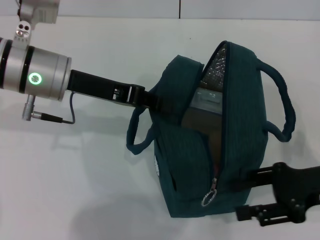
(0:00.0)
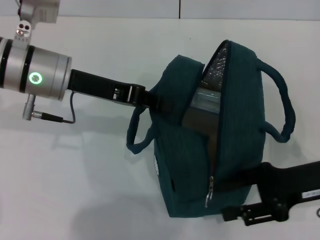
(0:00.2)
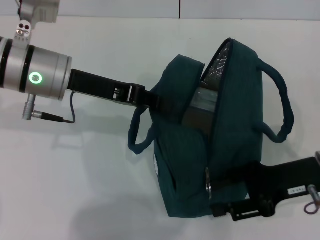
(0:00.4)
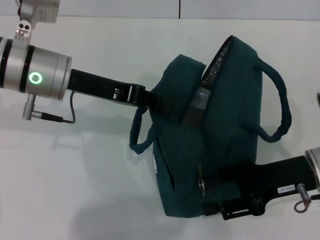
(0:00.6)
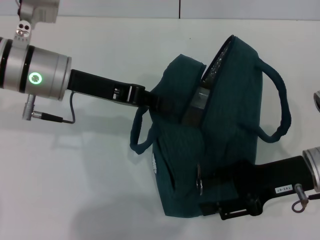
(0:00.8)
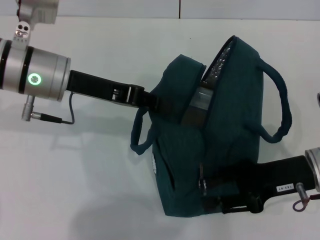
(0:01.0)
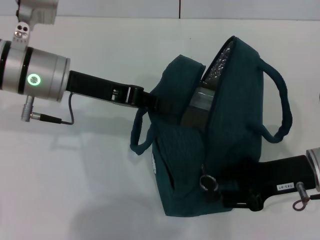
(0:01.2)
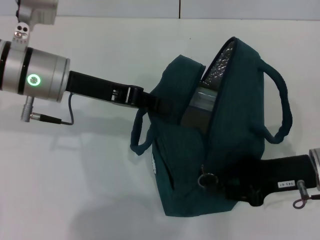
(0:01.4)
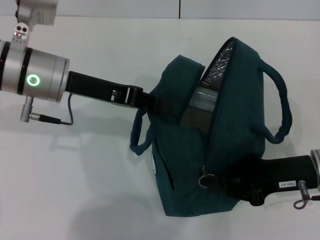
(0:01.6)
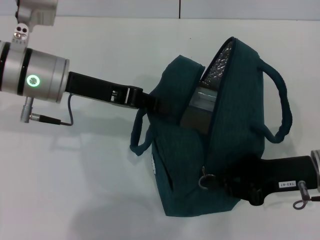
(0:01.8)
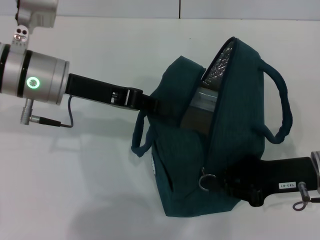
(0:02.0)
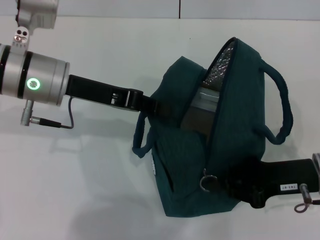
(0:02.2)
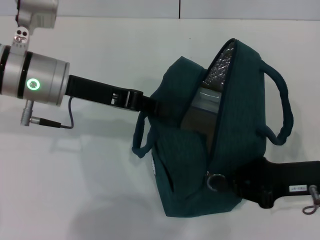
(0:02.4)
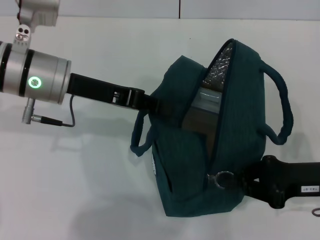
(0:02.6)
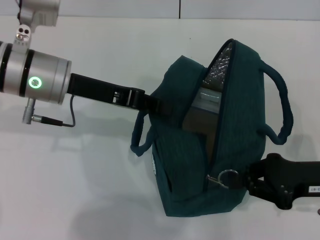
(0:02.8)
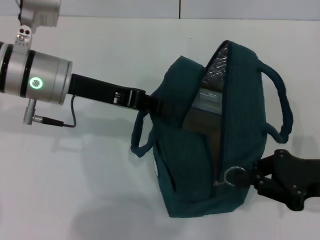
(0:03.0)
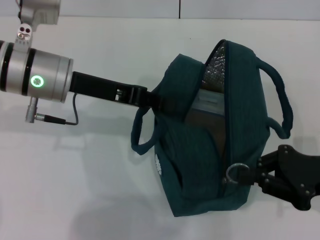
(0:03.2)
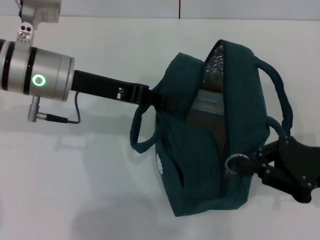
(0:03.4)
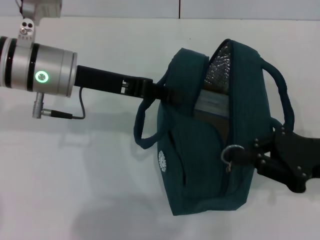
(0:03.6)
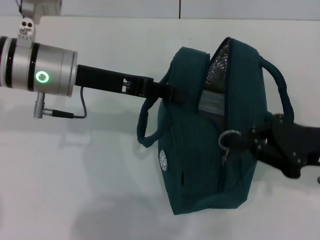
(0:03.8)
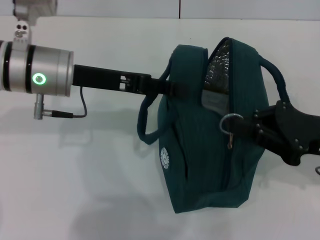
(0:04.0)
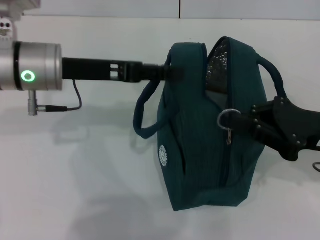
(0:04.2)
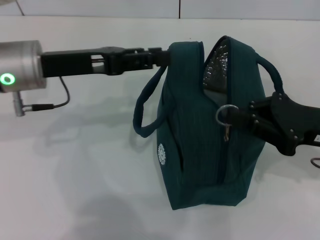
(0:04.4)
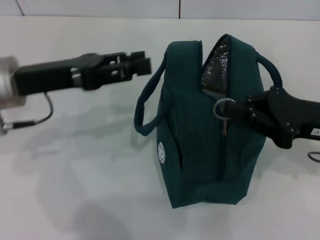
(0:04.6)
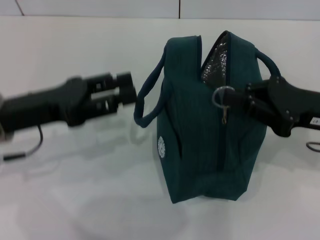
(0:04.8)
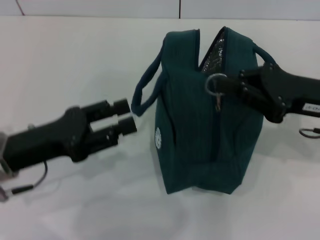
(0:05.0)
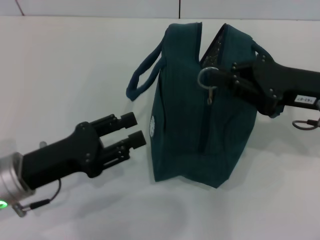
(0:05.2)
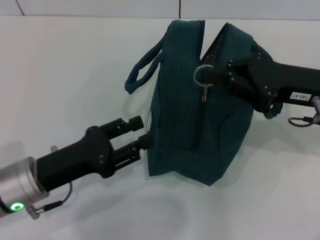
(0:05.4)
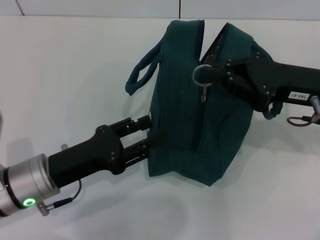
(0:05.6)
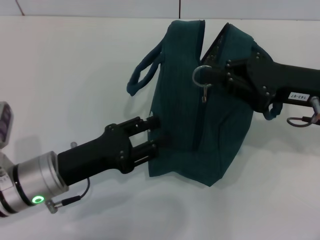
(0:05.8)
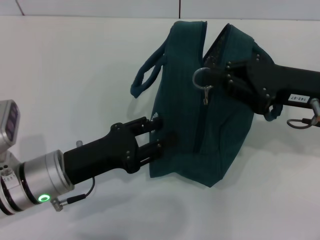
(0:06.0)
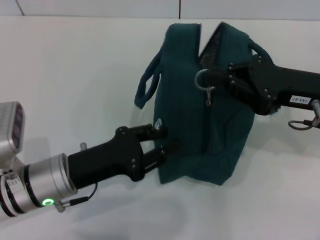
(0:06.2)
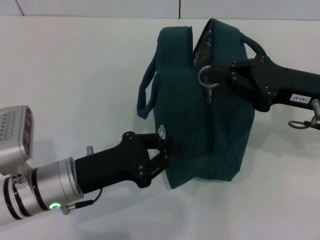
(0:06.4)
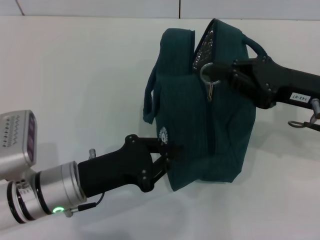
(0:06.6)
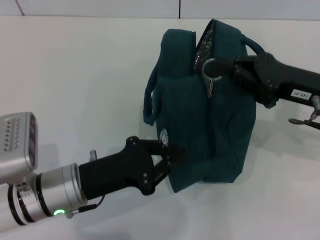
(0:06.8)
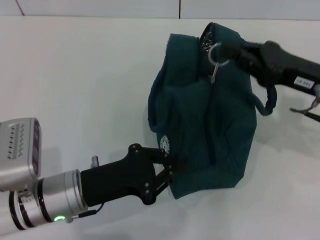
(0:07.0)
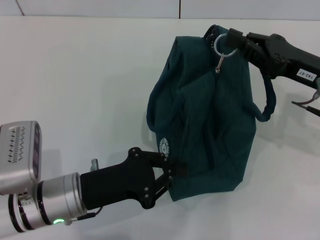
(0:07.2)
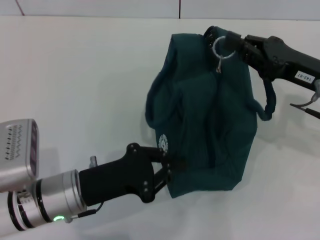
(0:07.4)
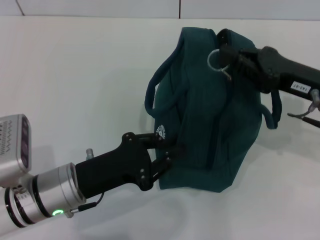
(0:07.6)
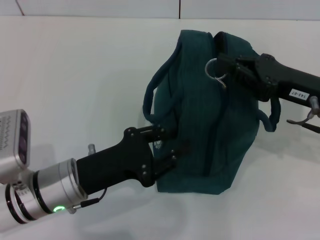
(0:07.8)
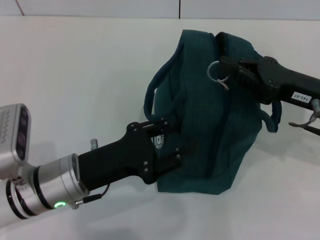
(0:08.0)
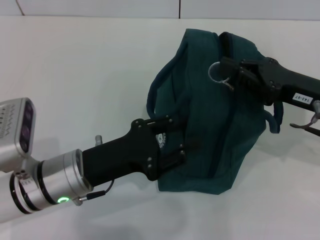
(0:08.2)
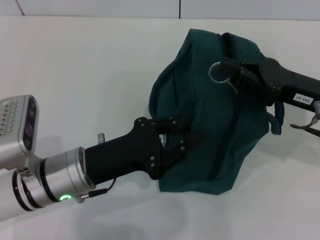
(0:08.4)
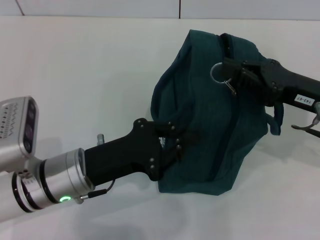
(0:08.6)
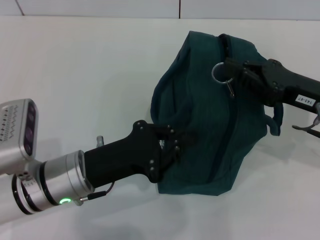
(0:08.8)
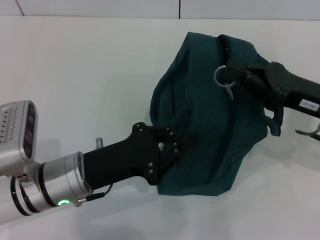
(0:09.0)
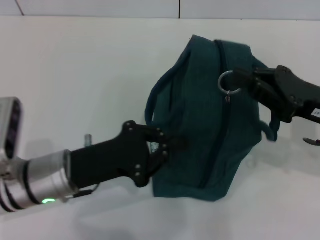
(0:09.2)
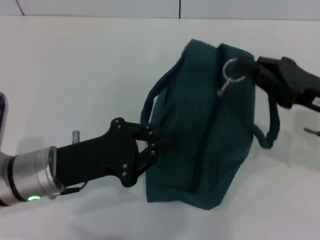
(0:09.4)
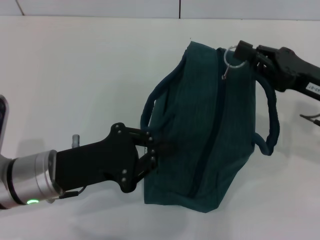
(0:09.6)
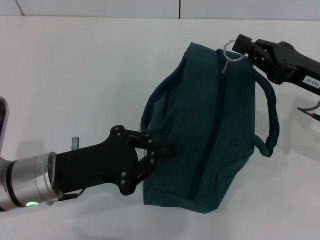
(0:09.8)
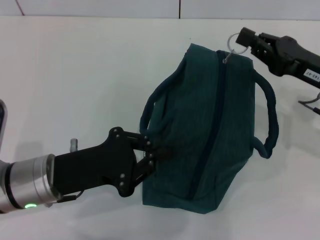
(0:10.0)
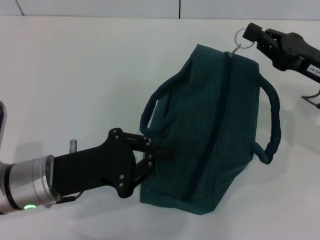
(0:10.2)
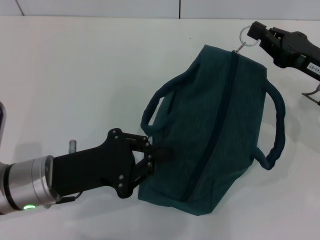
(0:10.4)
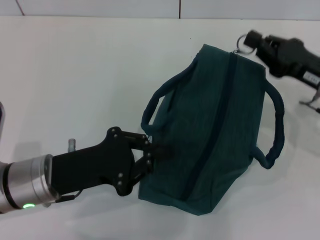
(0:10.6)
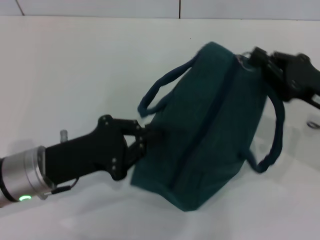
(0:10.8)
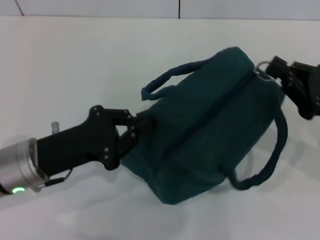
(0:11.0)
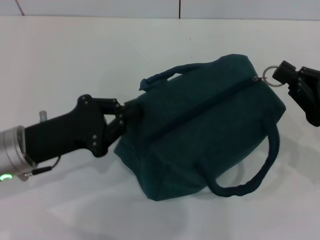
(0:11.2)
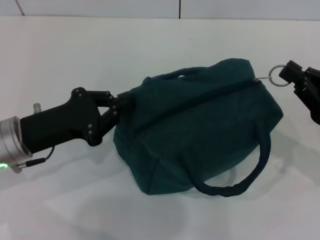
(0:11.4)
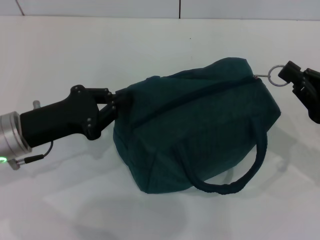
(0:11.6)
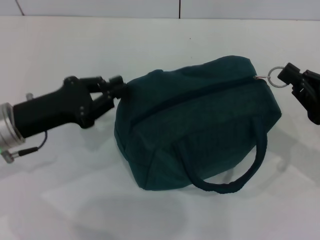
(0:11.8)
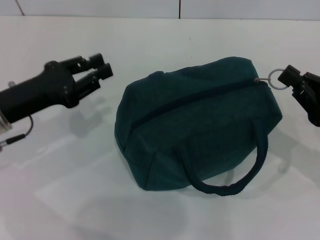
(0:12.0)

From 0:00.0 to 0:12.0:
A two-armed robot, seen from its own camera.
Step, from 0:00.0 to 0:04.2: Hold the lunch bag with your left hand.
From 0:00.0 to 0:01.6: The right gripper closes up.
From 0:01.6 to 0:03.0: The grippers stay close to where they were, moving slightly.
From 0:03.0 to 0:04.4: The left gripper opens.
From 0:04.4 to 0:06.0: The right gripper shifts by about 5 cm; the left gripper is displaced downward and backward by some 15 cm.
From 0:06.0 to 0:07.6: The left gripper closes its fingers.
From 0:07.6 to 0:09.0: The left gripper opens, then closes again.
From 0:10.4 to 0:12.0: The right gripper shifts roughly 10 cm backward; the left gripper goes roughly 10 cm to the left and forward.

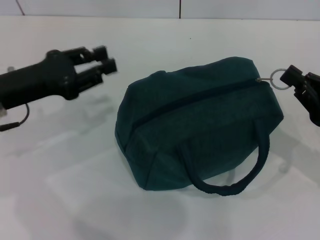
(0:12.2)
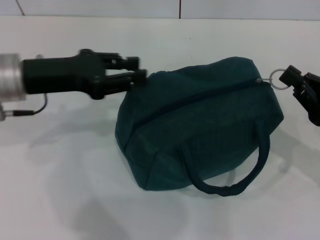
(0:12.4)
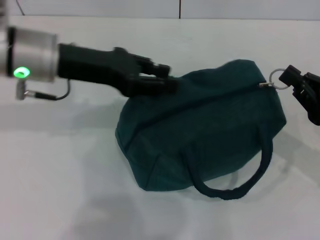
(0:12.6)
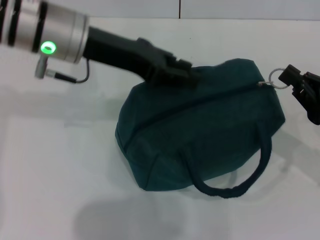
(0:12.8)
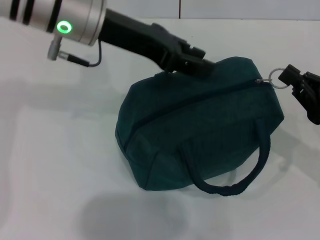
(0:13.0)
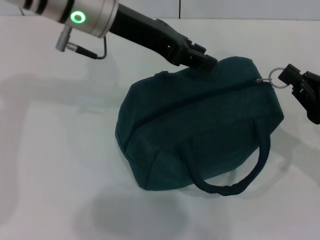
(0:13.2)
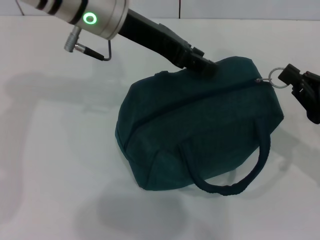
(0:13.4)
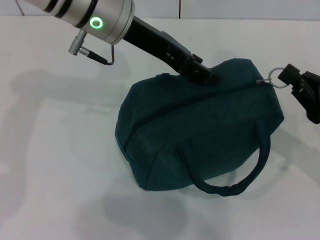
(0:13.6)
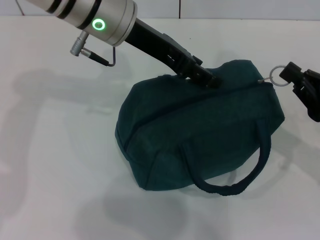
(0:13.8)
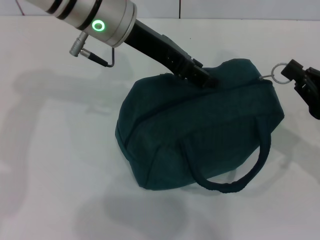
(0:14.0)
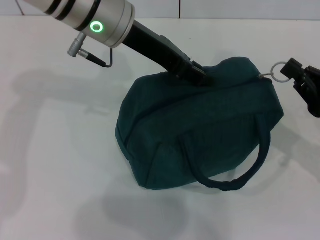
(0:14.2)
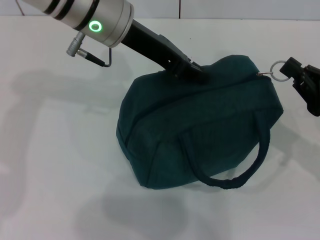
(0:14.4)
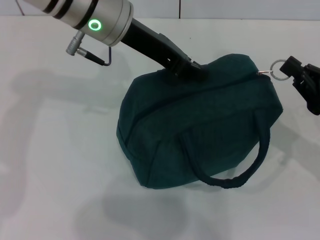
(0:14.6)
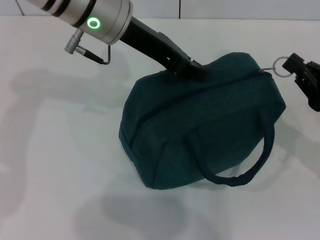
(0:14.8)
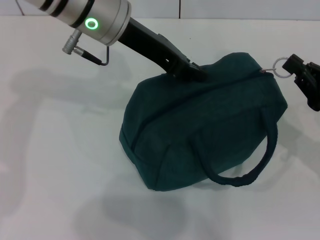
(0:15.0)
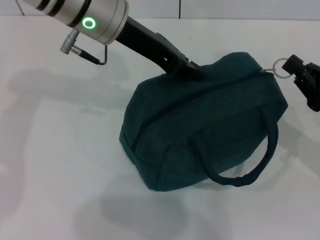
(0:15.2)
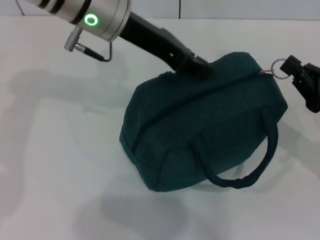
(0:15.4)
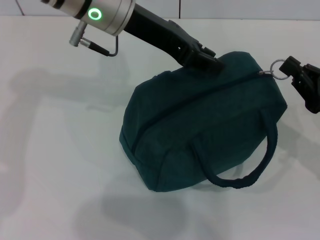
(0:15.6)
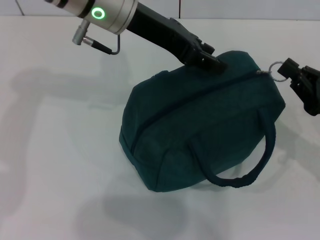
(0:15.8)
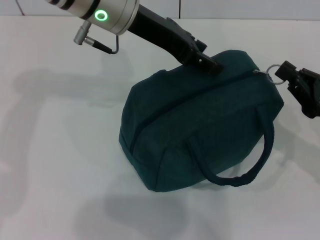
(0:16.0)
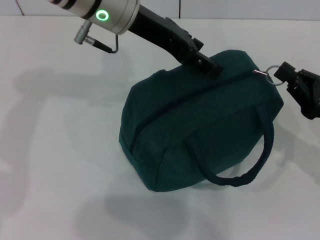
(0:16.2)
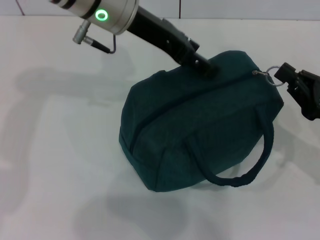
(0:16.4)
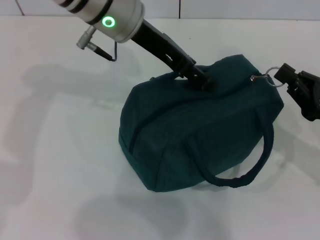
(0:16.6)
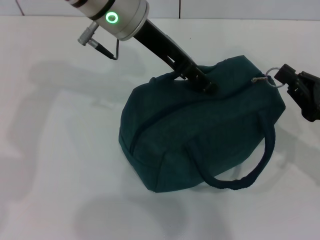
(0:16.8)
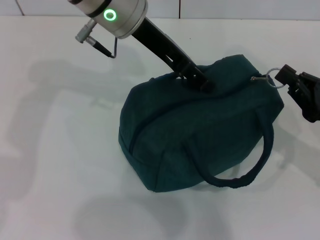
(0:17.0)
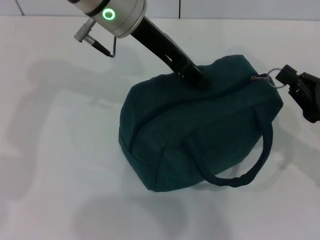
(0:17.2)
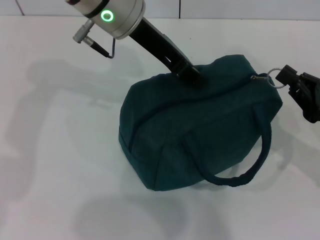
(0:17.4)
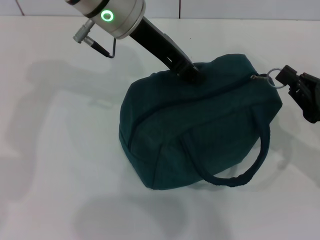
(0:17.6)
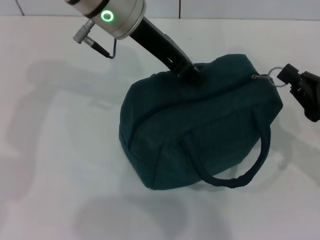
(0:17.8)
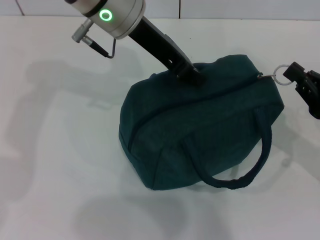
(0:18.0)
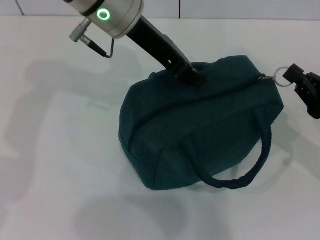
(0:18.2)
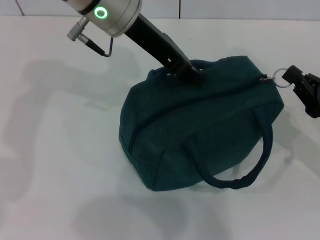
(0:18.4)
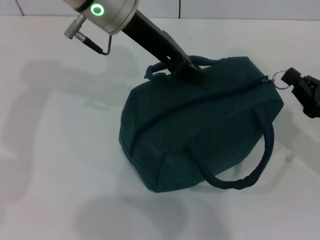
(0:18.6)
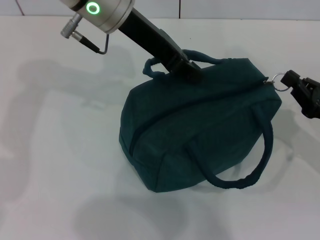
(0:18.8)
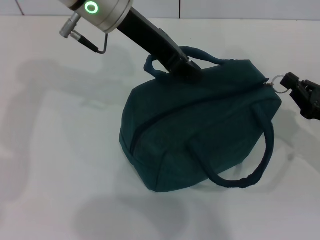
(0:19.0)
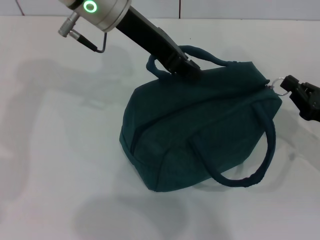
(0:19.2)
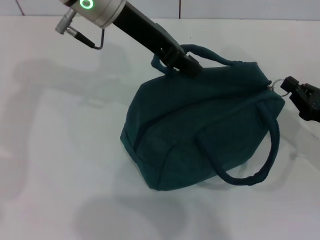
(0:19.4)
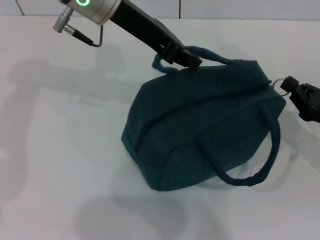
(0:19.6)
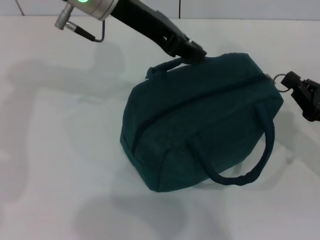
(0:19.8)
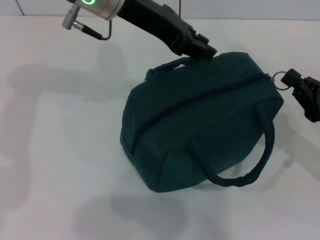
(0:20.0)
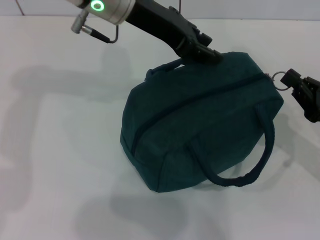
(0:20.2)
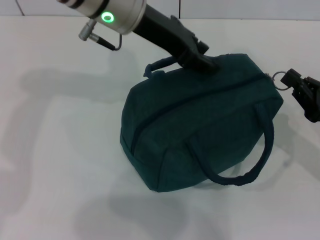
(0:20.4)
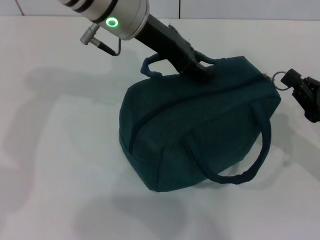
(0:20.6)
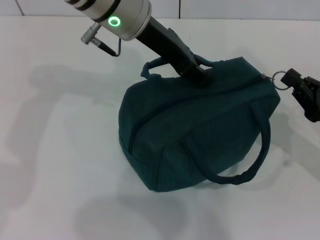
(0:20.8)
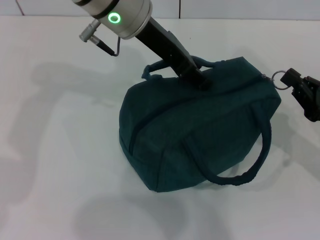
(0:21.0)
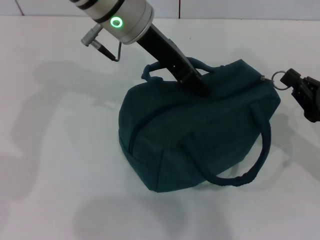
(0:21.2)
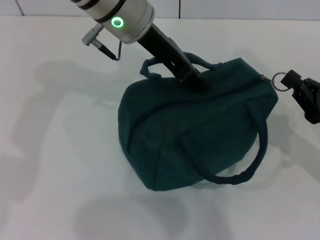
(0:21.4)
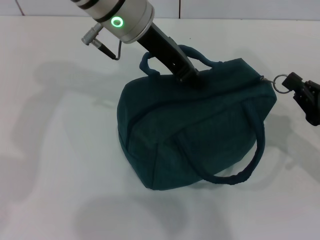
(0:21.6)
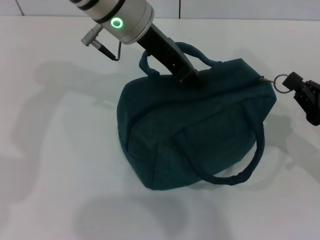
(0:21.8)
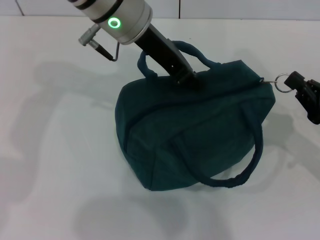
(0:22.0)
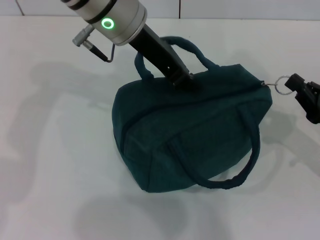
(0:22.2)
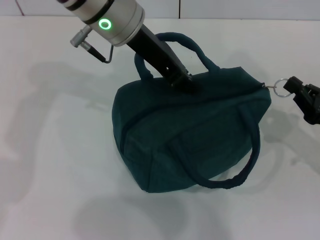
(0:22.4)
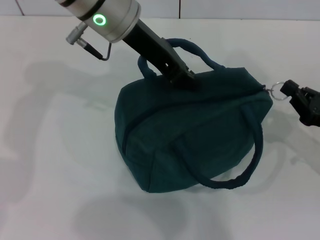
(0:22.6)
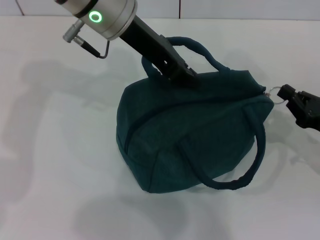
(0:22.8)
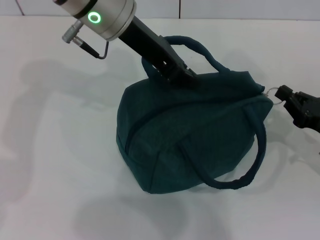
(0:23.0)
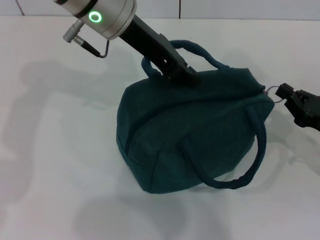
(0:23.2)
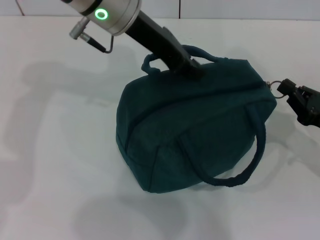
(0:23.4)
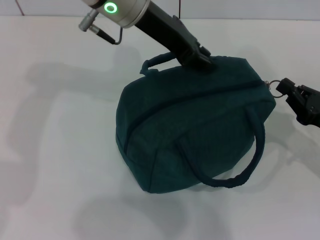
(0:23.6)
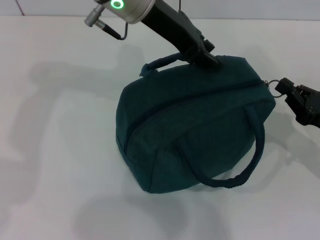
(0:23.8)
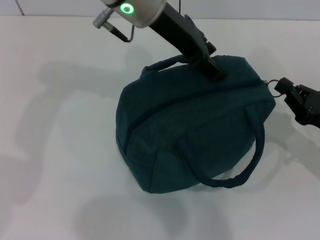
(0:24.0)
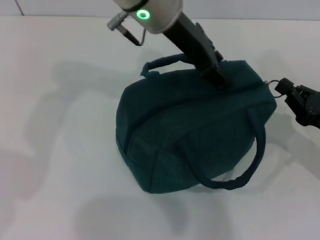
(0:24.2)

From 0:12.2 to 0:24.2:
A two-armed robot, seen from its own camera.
From 0:12.2 to 0:13.8: The left gripper goes some 20 cm to the right, upward and forward, and opens.
From 0:13.8 to 0:15.2: The left gripper closes up.
From 0:15.2 to 0:16.6: The left gripper opens.
From 0:16.6 to 0:18.2: The left gripper closes.
From 0:18.2 to 0:19.8: The grippers stay close to where they were, moving slightly.
From 0:19.8 to 0:21.2: The left gripper opens up.
From 0:21.2 to 0:22.6: The left gripper closes up.
From 0:22.6 to 0:24.2: The left gripper travels to the right by approximately 5 cm, and opens its fingers.
